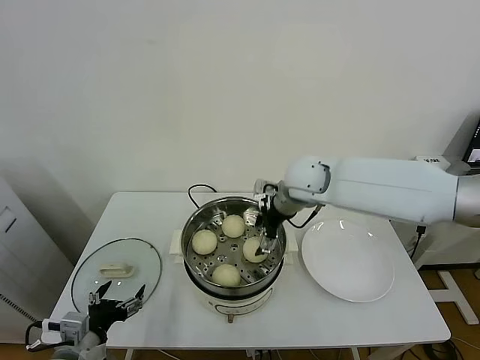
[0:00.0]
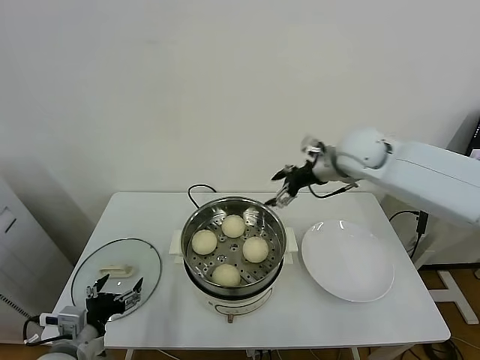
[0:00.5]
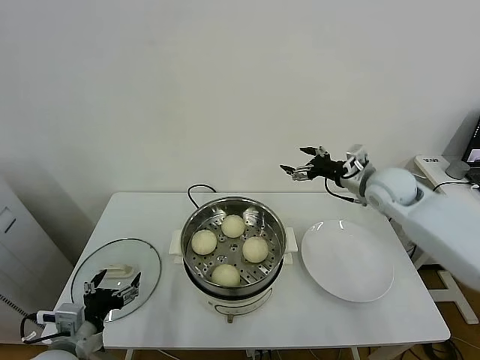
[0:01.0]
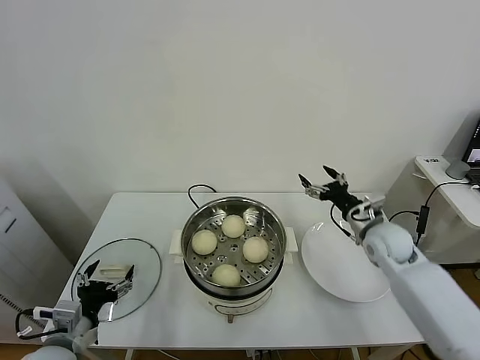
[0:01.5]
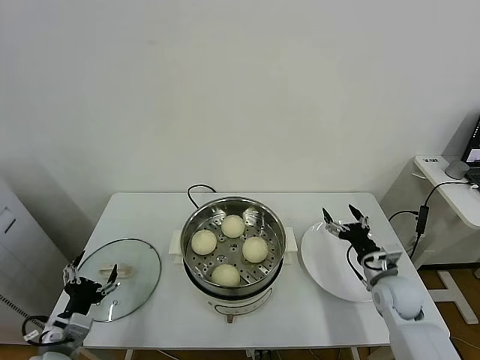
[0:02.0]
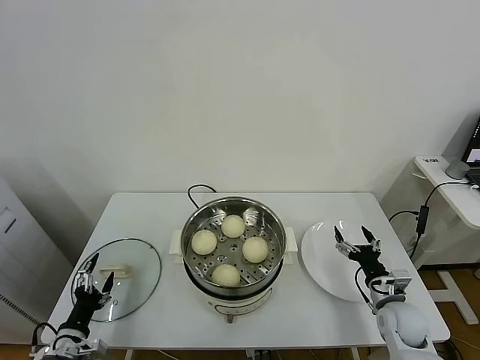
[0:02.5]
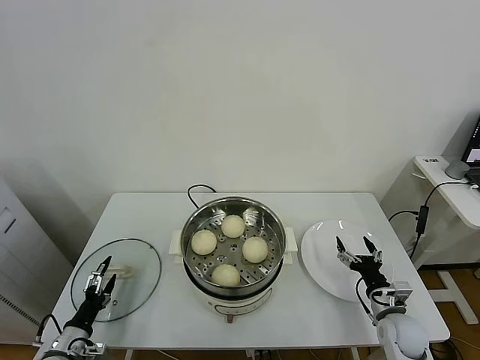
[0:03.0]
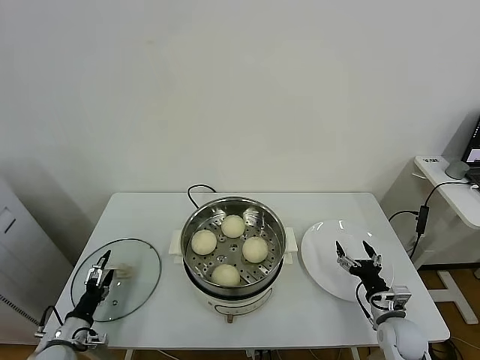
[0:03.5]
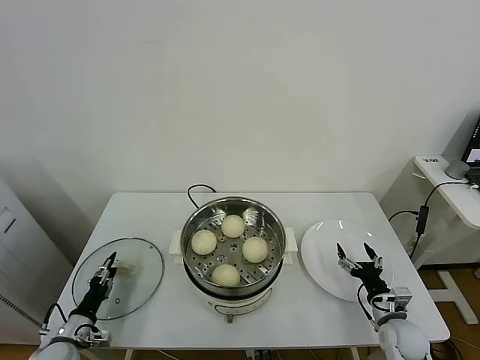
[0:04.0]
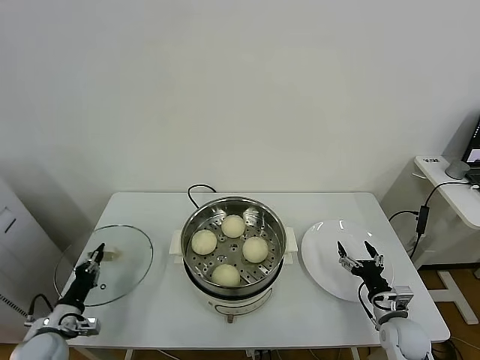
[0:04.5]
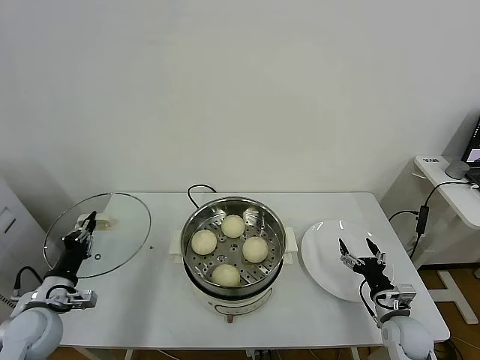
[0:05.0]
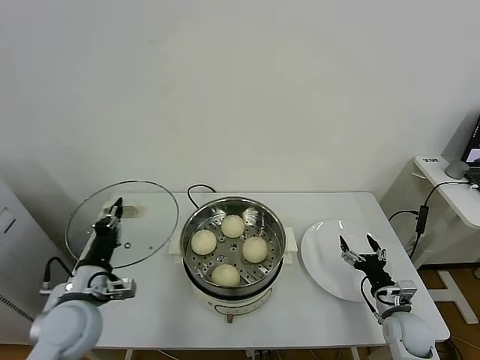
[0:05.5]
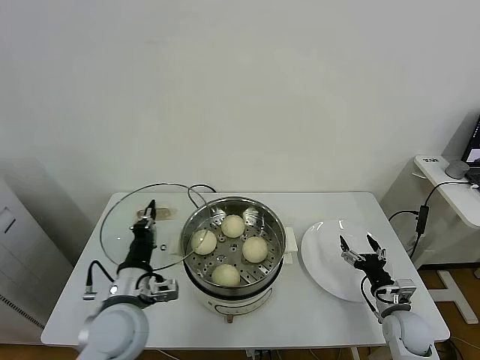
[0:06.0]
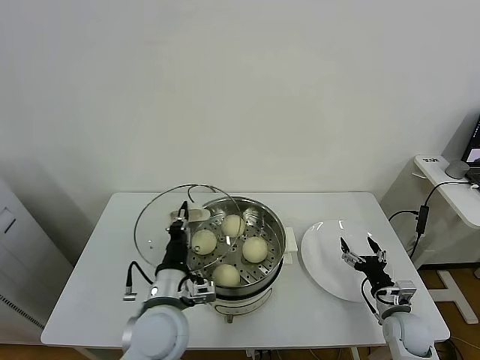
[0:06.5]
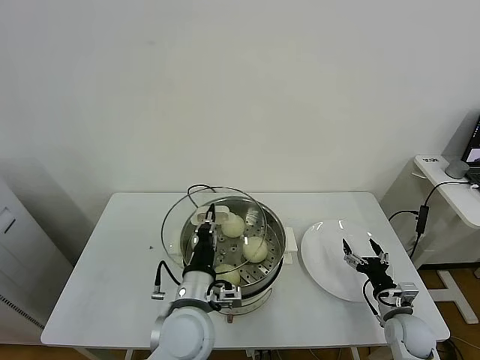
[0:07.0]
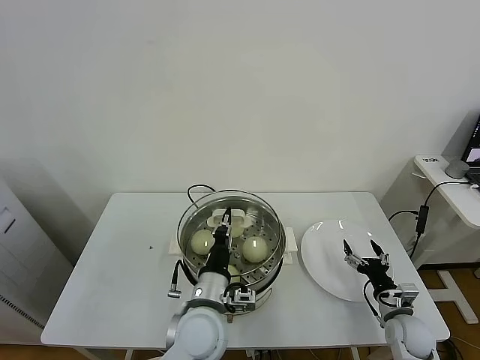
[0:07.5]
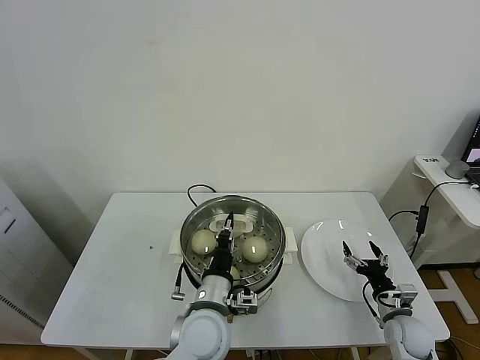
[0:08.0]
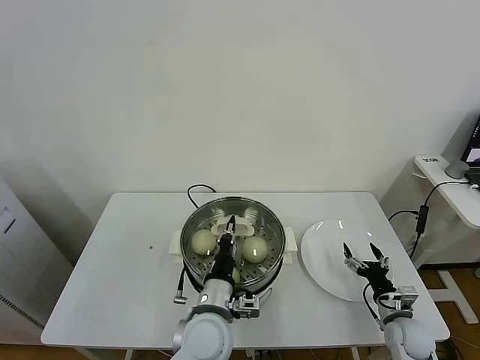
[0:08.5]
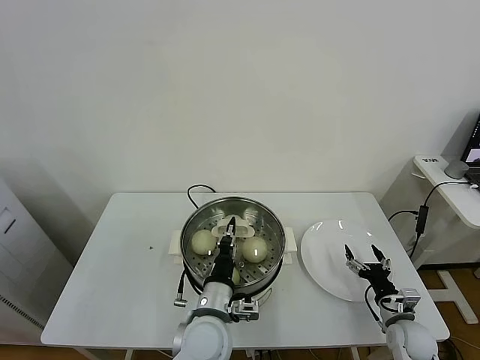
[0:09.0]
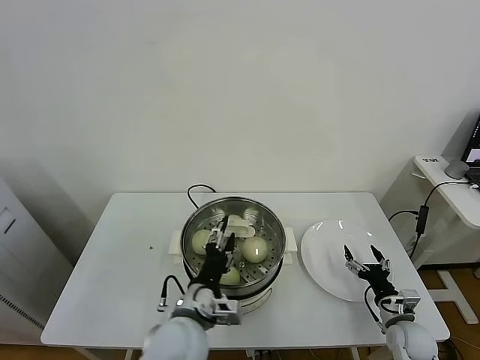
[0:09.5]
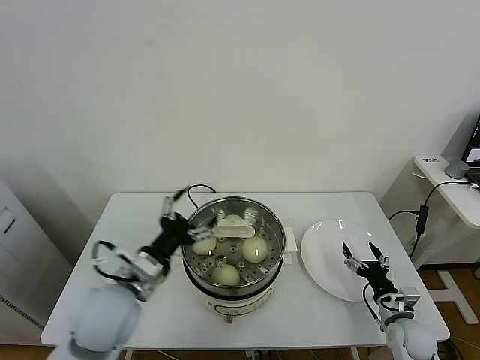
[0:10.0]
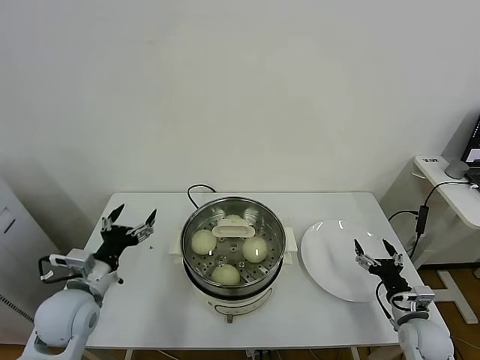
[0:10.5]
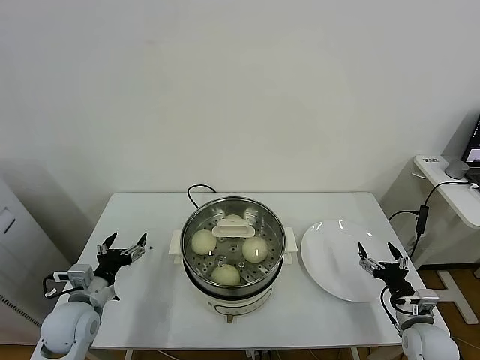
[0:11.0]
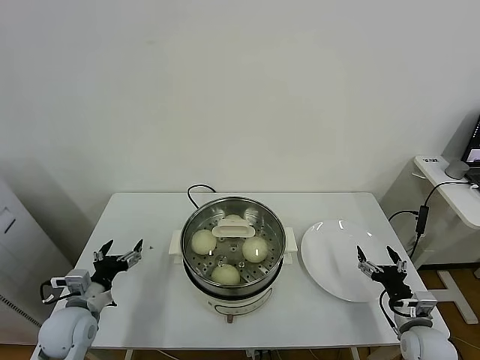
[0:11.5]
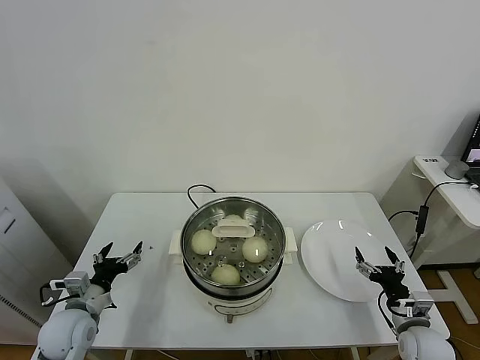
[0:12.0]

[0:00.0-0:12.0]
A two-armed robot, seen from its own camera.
Task of the whole recording: take steamed baozi put them in steamer.
Step, 0:00.5 to 0:04.5: Grasp the pot lid with left gripper.
Step, 0:05.0 to 0:09.5: Place the pot lid on the steamer with left gripper.
0:00.0 to 0:02.0: The right gripper shifts some 35 cm downward, to the right and backward.
0:02.0 to 0:04.0: The right gripper travels downward and backward by roughly 10 cm; the left gripper moves downward, to the left and forward, some 15 cm, and closes its fingers.
0:04.0 to 0:06.0: The left gripper goes approximately 30 cm upward and to the right, and closes up.
0:06.0 to 0:08.0: The left gripper is displaced to the right by some 15 cm.
0:08.0 to 0:10.0: The left gripper shifts roughly 15 cm to the left and upward, and opens.
0:10.0 to 0:12.0: The right gripper ends up roughly 5 cm from where it was. The left gripper travels to the left and downward by roughly 20 cm.

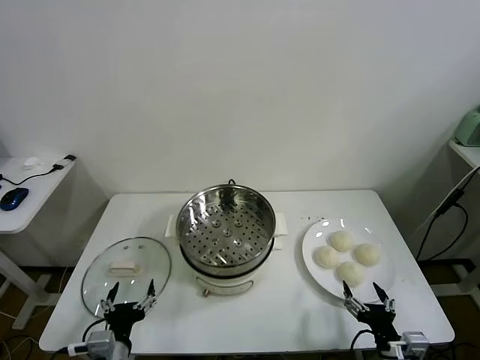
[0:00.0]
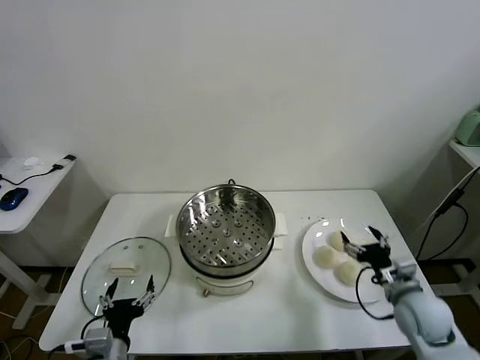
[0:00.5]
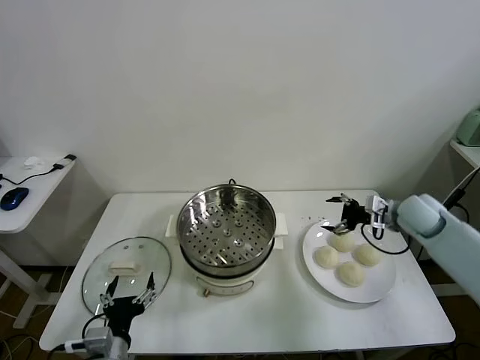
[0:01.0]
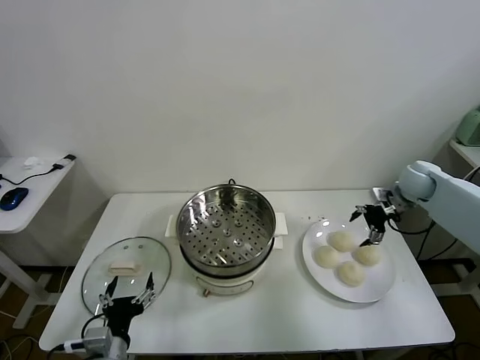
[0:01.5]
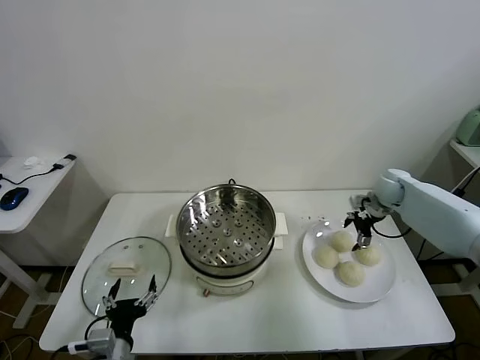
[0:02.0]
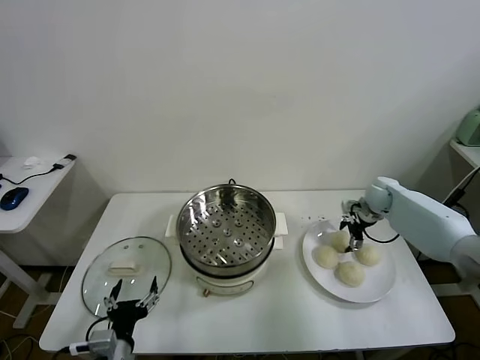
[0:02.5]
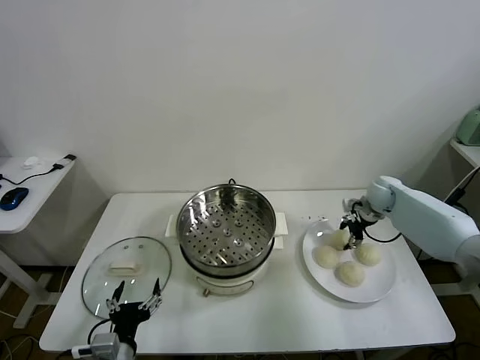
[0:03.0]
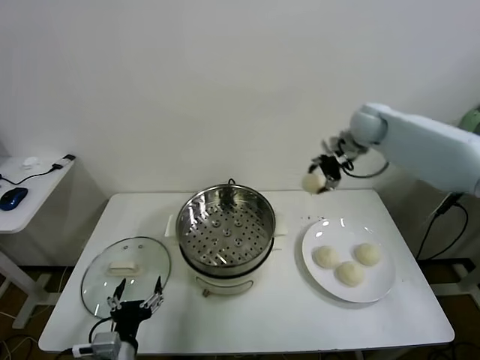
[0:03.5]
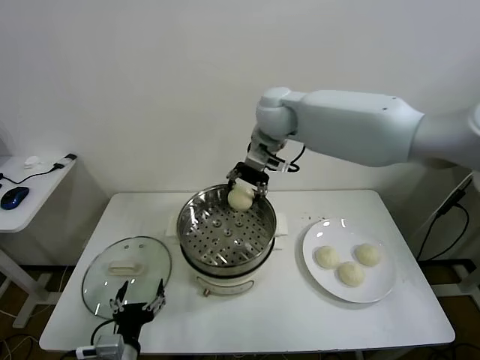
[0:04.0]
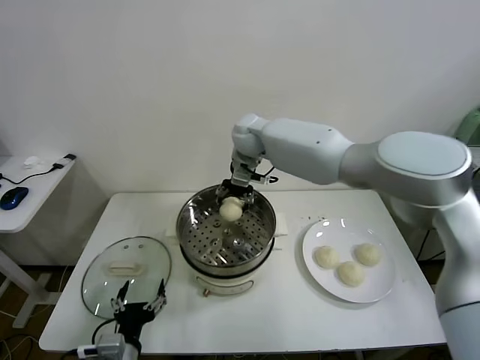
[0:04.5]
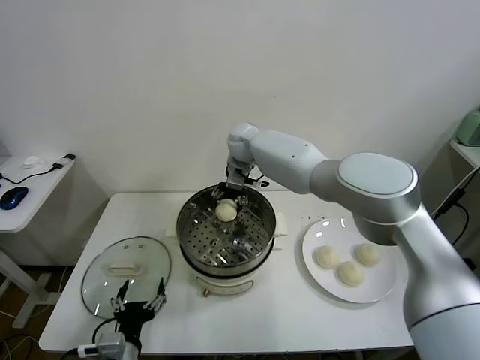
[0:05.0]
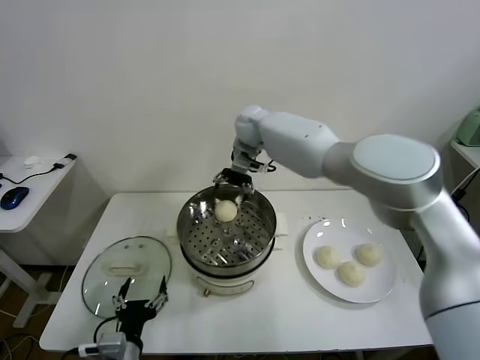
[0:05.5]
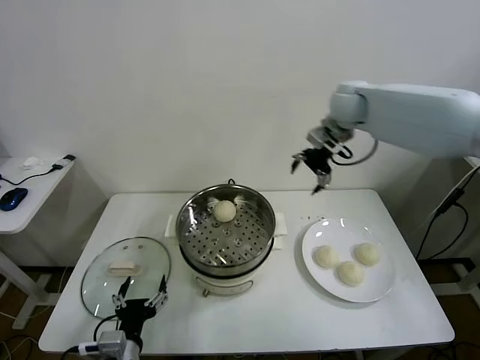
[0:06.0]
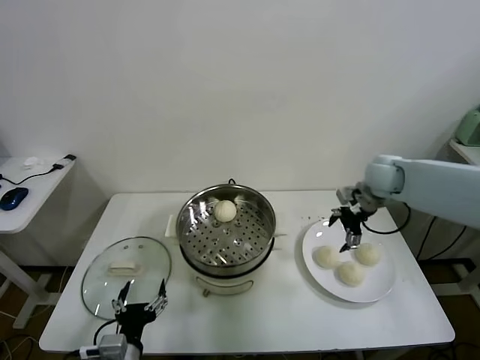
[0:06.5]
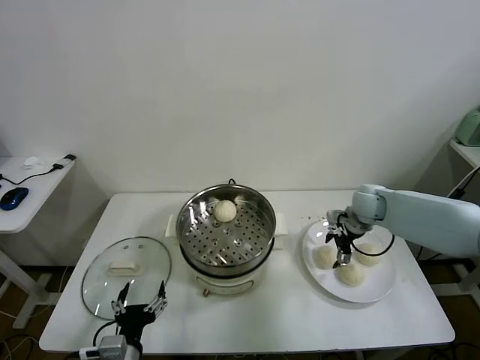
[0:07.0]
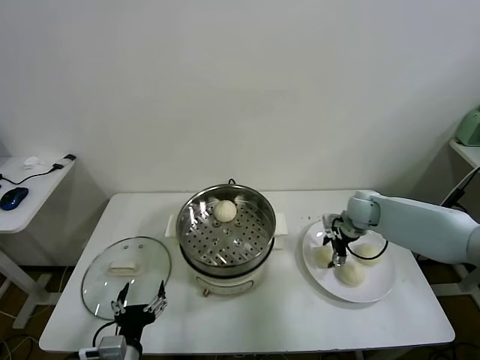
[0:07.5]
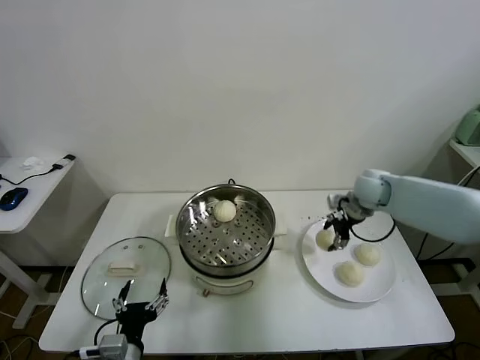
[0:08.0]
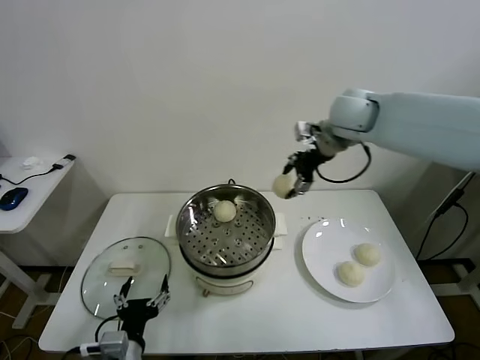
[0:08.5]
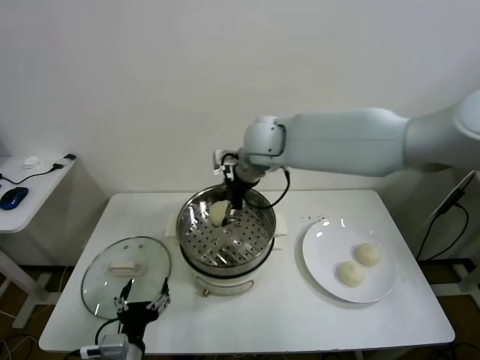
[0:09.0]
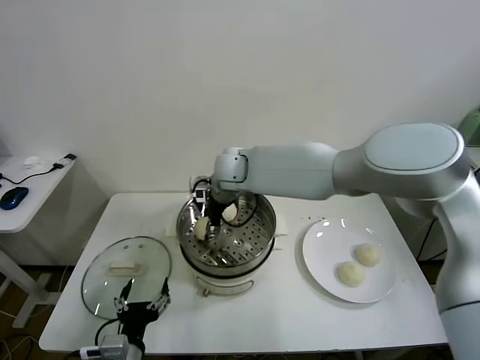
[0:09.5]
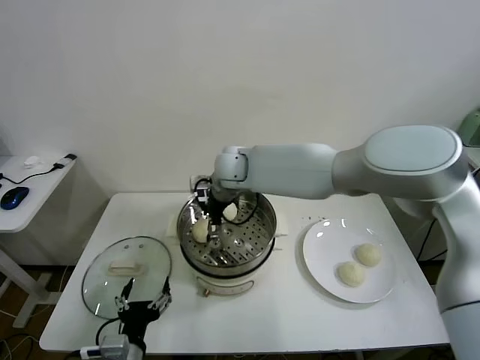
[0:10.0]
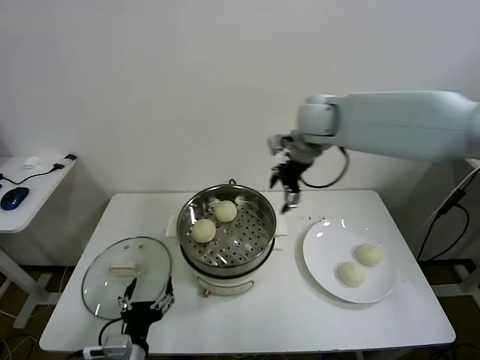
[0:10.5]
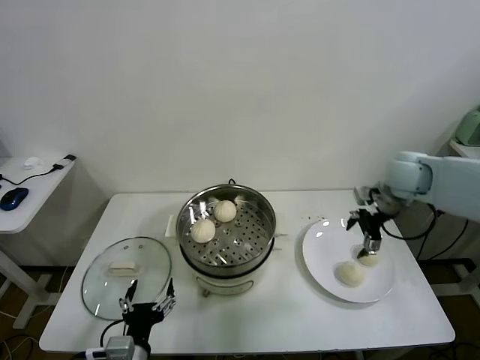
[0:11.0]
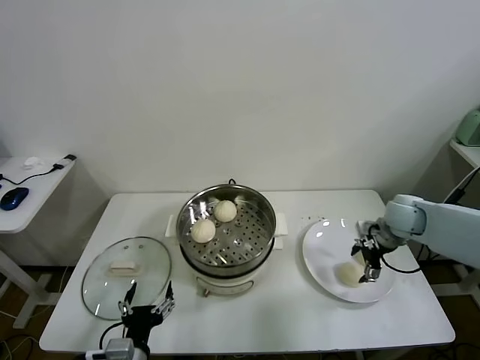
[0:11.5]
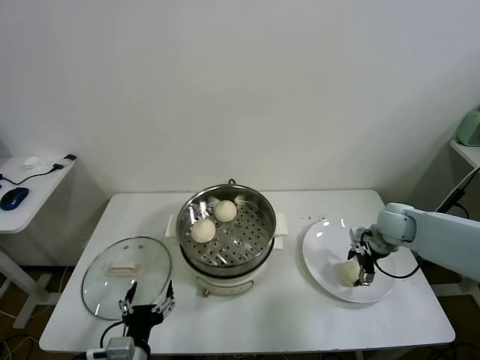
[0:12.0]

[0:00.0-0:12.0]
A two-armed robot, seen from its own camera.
Task of the whole recording: take steamed baozi put them in steamer.
Step, 0:00.0 to 0:02.5: Grasp the baozi in the plate with right gripper.
Step, 0:03.0 to 0:05.5: Place the baozi on the steamer with right gripper.
Step, 0:06.0 to 0:07.5: Grasp the baozi in the plate with right gripper.
Step, 0:08.0 to 0:10.0: Place the baozi on the steamer with right gripper.
0:02.0 to 0:04.0: The right gripper moves to the left and upward, about 40 cm, and closes up.
0:04.0 to 0:06.0: The right gripper shifts roughly 20 cm to the right, and opens its fingers.
0:06.0 to 0:08.0: The right gripper moves downward, some 15 cm, and closes up.
0:08.0 to 0:10.0: The right gripper heads to the left, covering approximately 35 cm, and opens up.
0:10.0 to 0:12.0: The right gripper is displaced to the right by roughly 40 cm.

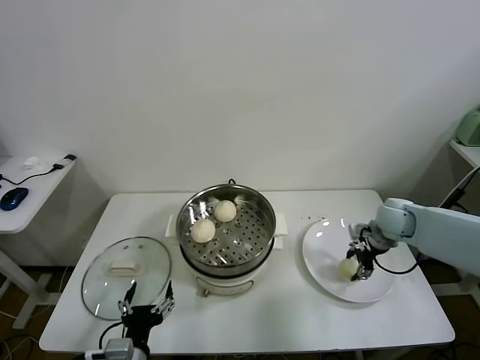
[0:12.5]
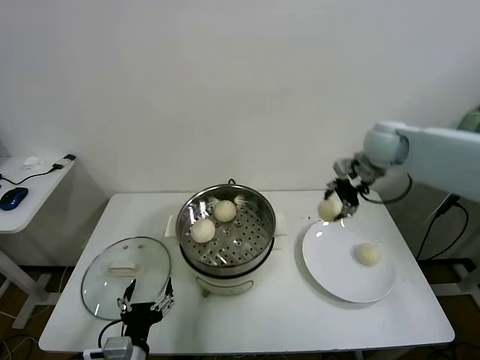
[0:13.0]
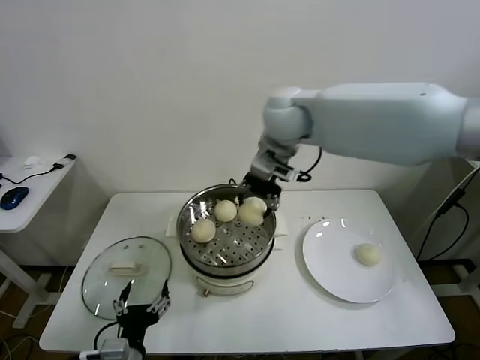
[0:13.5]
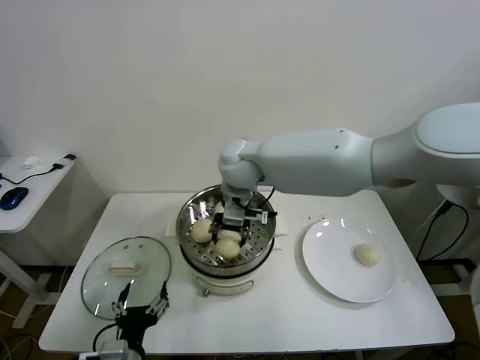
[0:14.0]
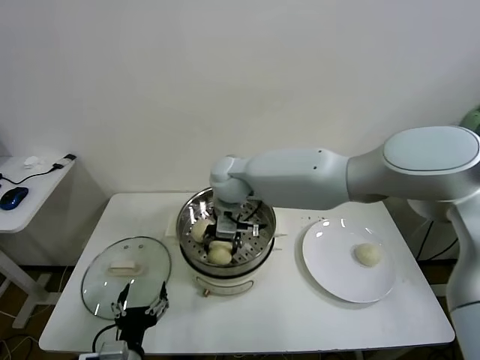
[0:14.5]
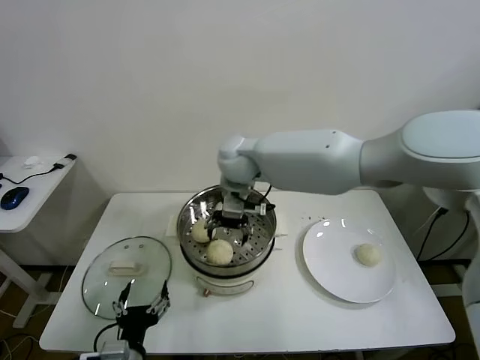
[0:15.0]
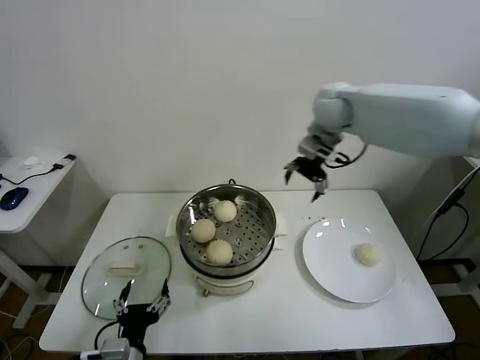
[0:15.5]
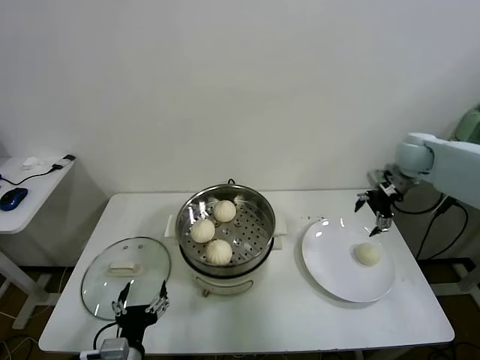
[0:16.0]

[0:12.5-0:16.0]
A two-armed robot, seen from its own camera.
Task of the whole recording: take steamed baozi put them in steamer.
Step, 0:13.0 to 0:15.0: Place the baozi on the steamer with right gripper.
0:12.5 to 0:14.5: The right gripper travels to the left by some 40 cm.
0:14.5 to 0:16.0: The right gripper travels to the right by approximately 40 cm, and opens up.
